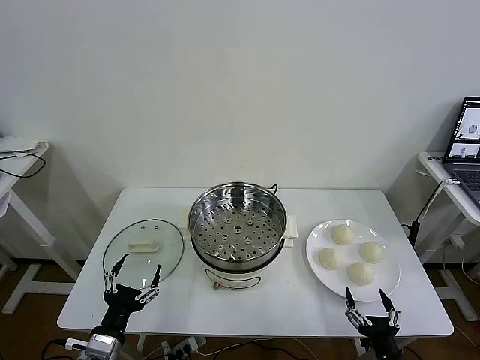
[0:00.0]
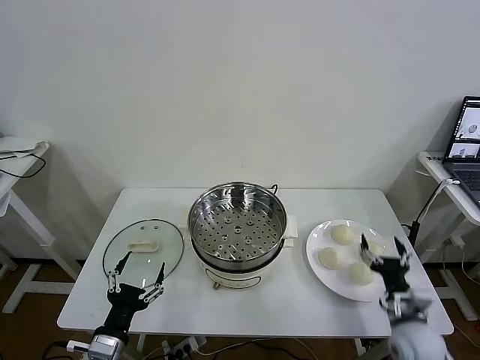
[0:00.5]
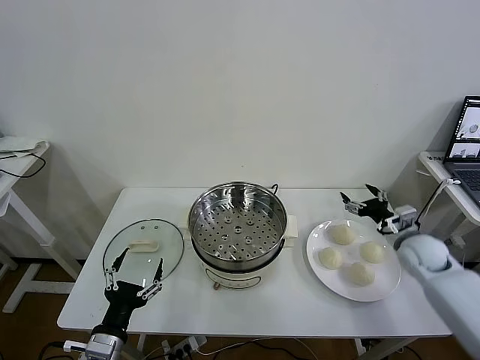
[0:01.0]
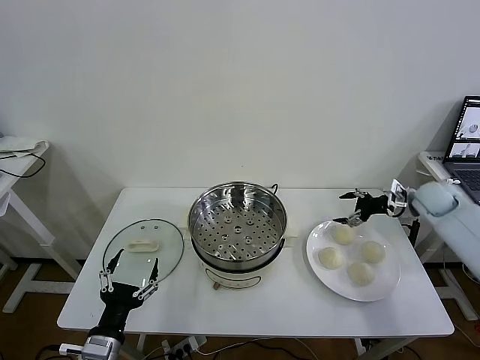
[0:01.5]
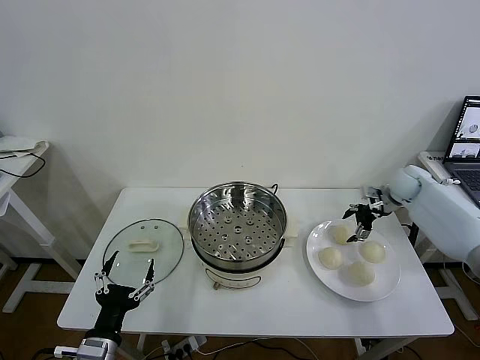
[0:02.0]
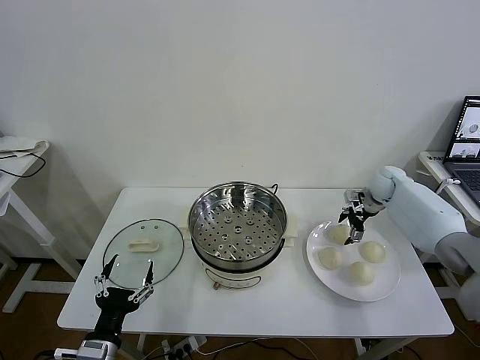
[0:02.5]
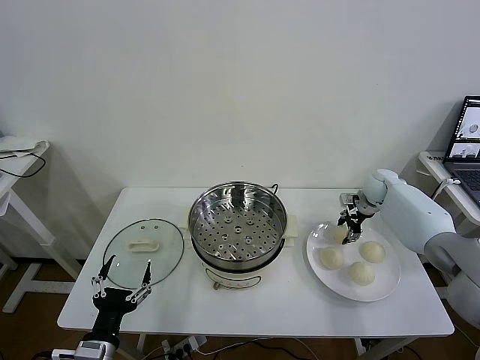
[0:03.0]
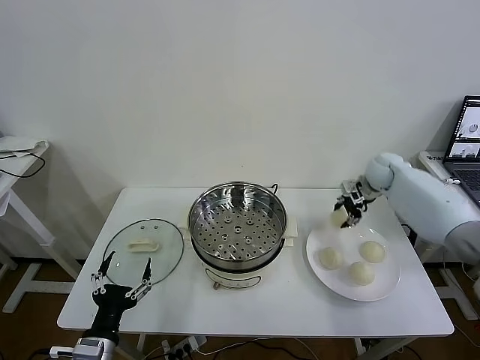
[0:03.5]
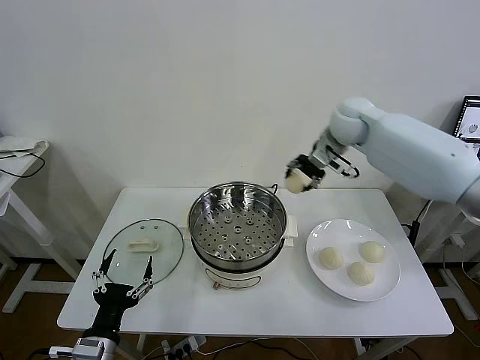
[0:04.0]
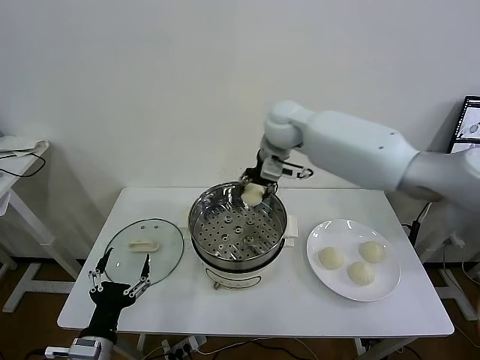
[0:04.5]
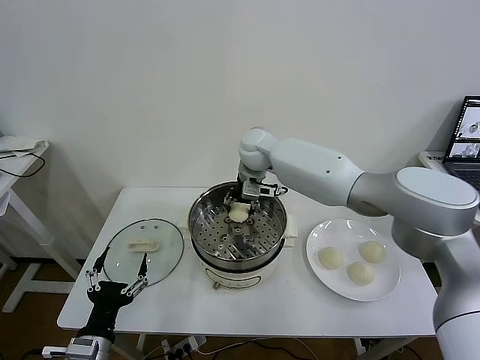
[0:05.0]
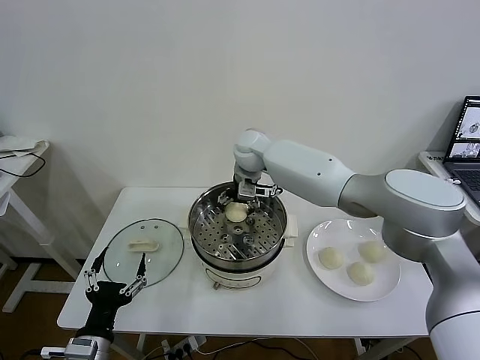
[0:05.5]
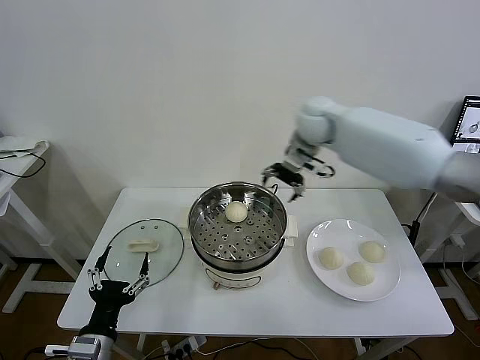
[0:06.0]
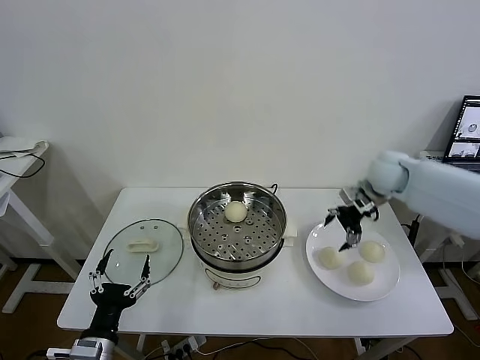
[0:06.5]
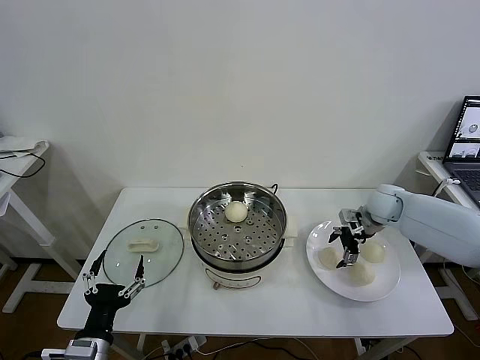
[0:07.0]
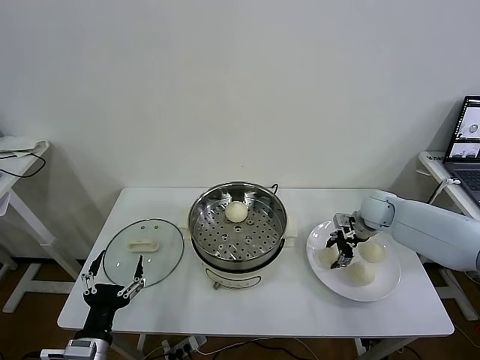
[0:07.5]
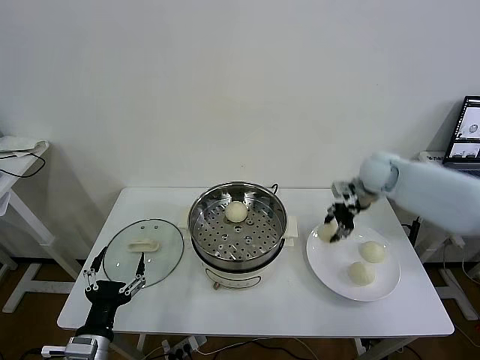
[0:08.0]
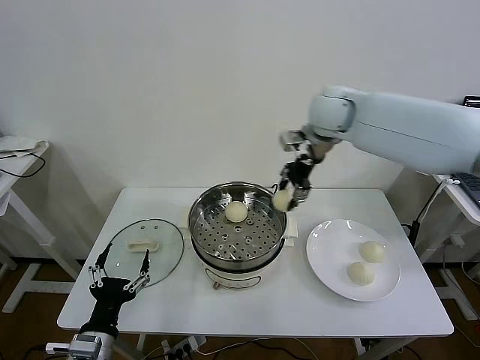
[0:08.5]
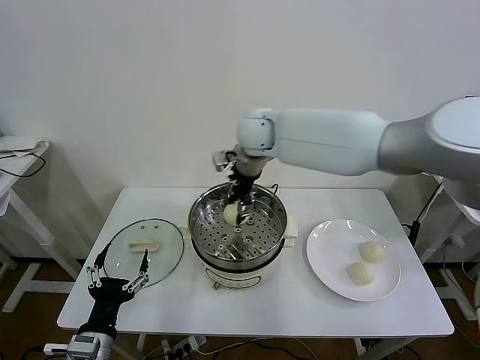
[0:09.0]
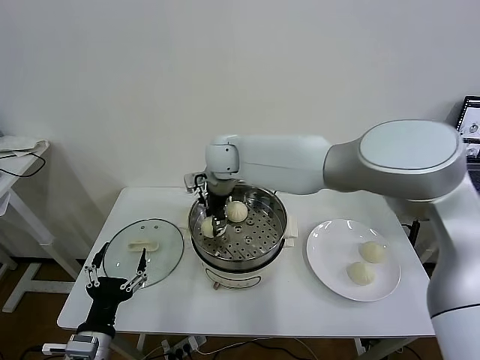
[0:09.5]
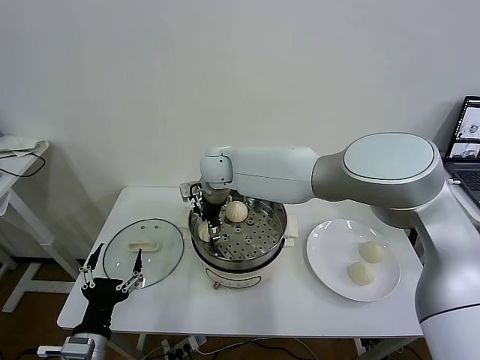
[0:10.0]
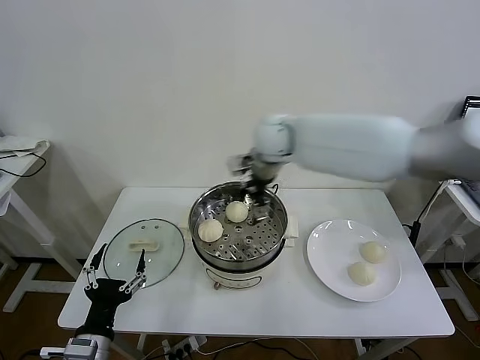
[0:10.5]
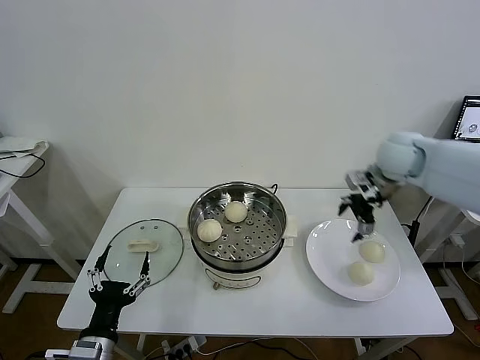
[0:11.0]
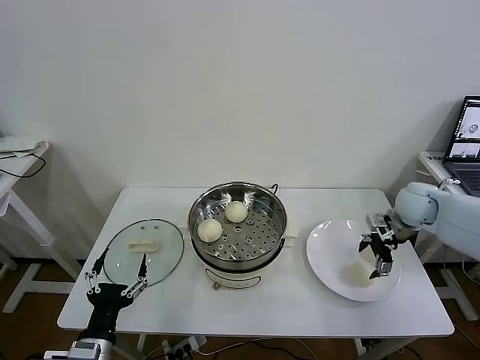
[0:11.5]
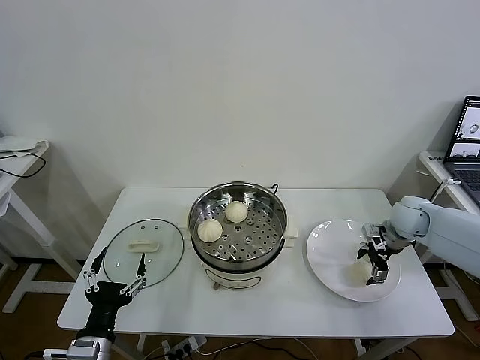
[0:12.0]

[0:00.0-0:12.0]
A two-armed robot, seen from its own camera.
Task of the whole recording: take steamed baozi put them in steamer then cover it.
Step, 0:00.0 to 0:03.0: Grasp the baozi in the plate with right gripper.
Step, 0:03.5 to 0:05.0: Place the baozi on the steamer with right gripper.
Step, 0:05.5 to 0:07.5: Grasp the baozi in the plate with right gripper.
Step, 0:08.0 to 0:10.0: Place the baozi on the steamer with right gripper.
0:02.0 to 0:04.0: The right gripper is displaced to the left and upward by some 30 cm, and closes.
0:04.0 to 0:06.0: The right gripper reaches some 15 cm to the left, then returns, and opens its fingers.
0:06.0 to 0:08.0: The right gripper goes approximately 15 cm to the right and downward, and closes up.
0:08.0 to 0:10.0: The right gripper travels to the left by about 35 cm, and opens its fingers.
0:10.0 to 0:12.0: The right gripper travels to the right by approximately 50 cm.

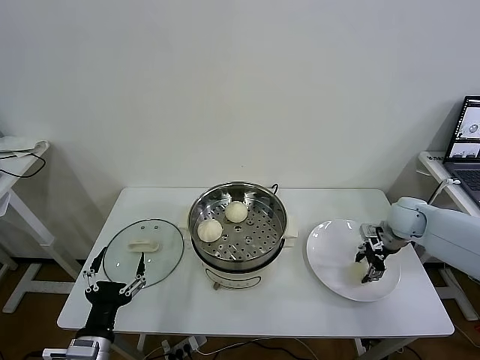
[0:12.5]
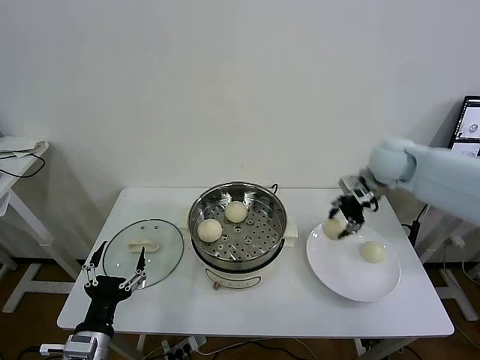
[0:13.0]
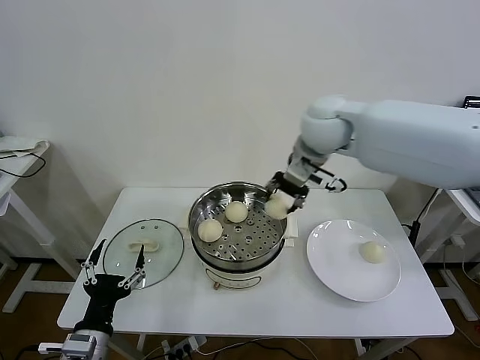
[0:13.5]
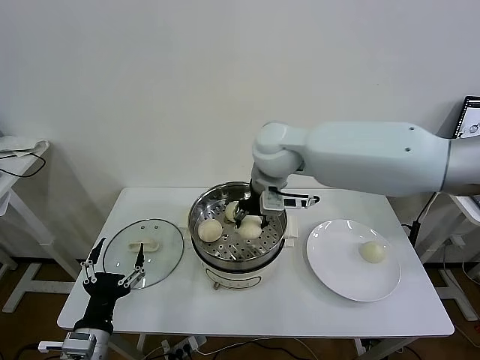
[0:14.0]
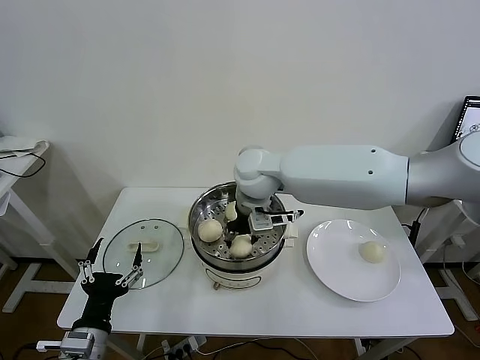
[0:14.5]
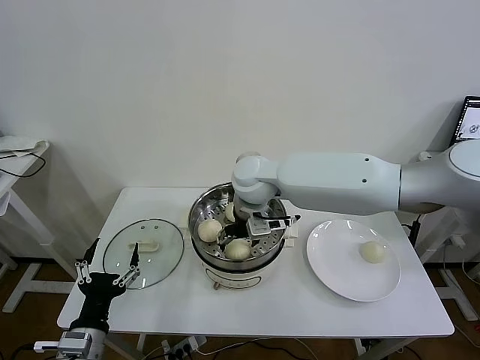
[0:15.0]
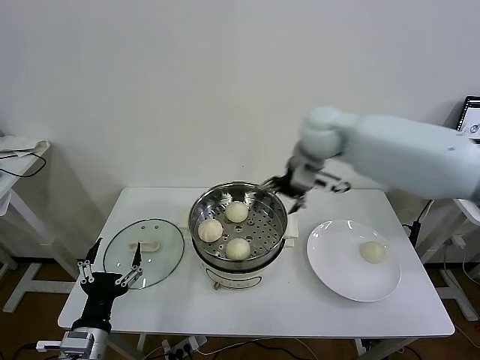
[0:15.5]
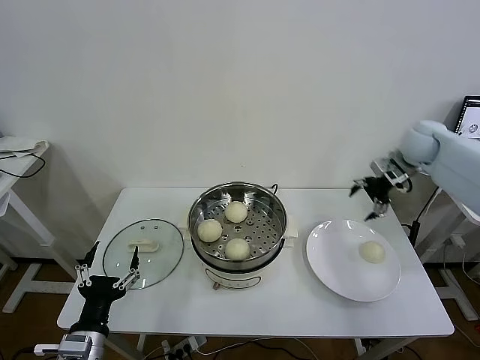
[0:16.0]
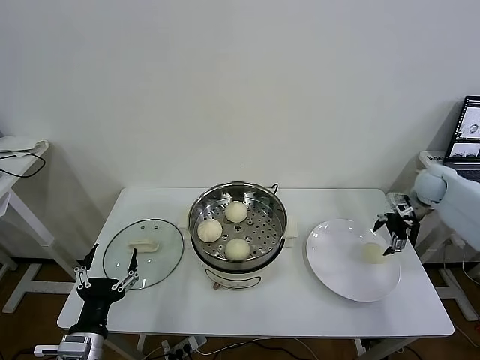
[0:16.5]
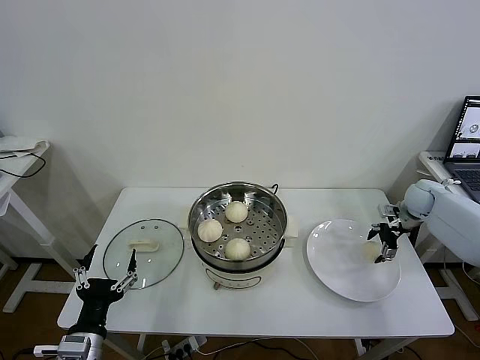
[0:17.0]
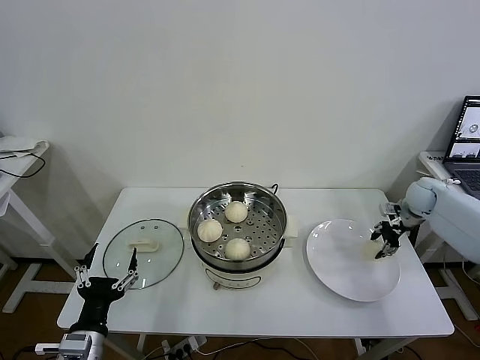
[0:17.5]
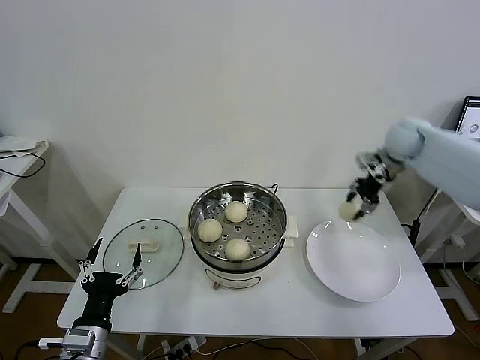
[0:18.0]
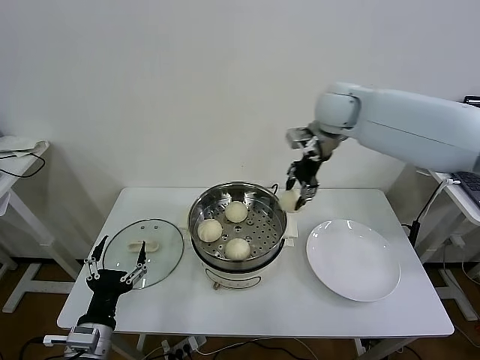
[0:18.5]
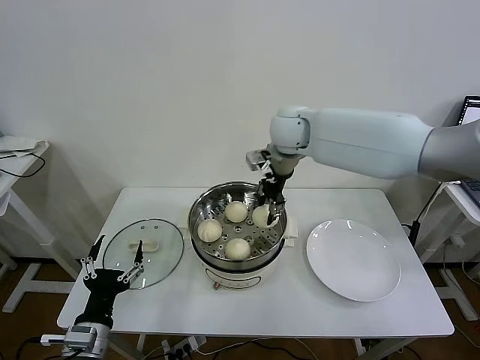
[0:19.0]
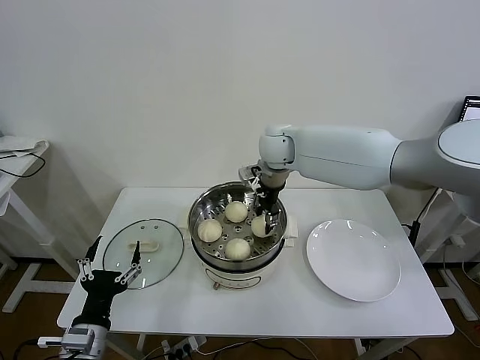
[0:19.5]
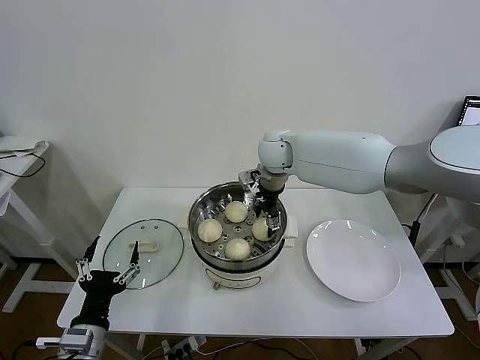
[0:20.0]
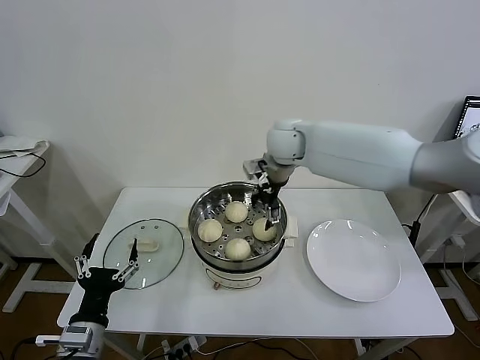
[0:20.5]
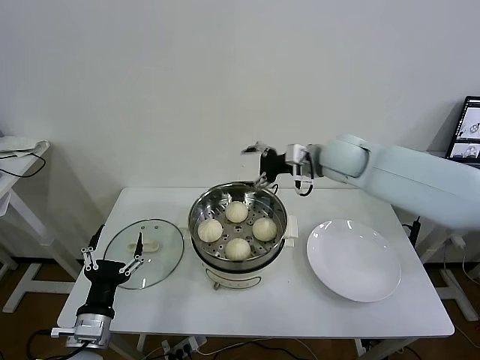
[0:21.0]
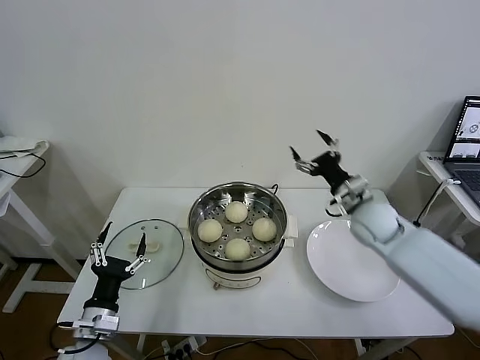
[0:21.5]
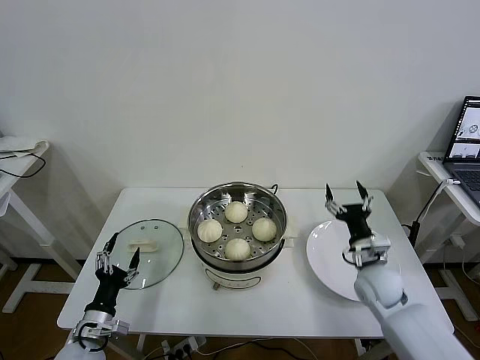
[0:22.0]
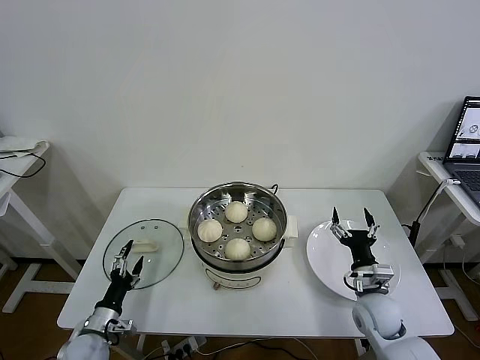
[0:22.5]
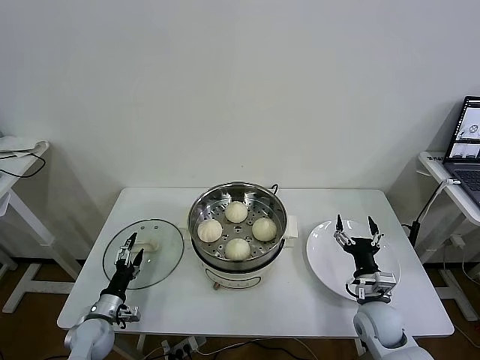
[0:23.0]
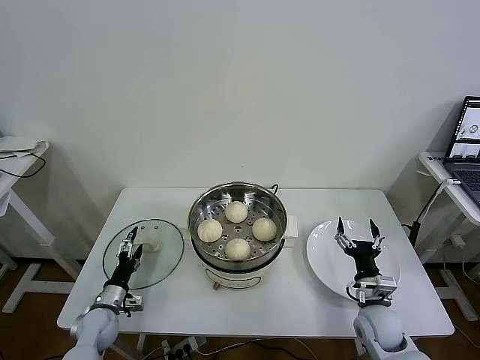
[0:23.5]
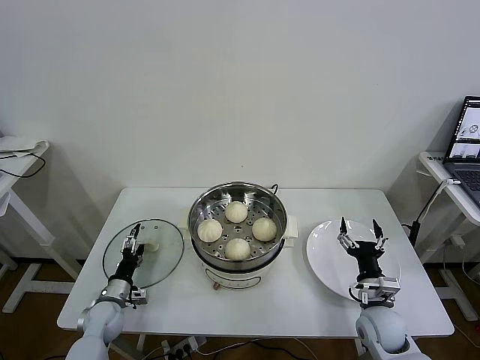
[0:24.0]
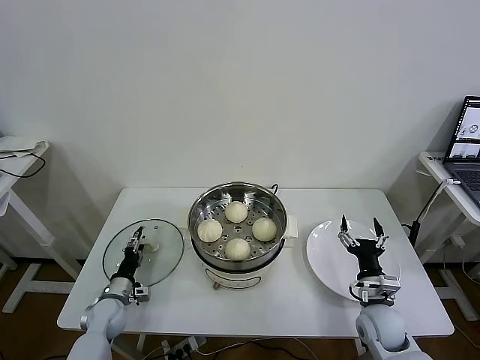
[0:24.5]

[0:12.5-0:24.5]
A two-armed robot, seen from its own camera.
Task of the whole recording: take steamed baozi put them in steamer then cover it.
Step, 0:13.0 to 0:15.0: Place the baozi on the steamer with right gripper.
Step, 0:15.5 to 0:17.0: Grasp the baozi in the plate with right gripper.
Step, 0:18.0 to 0:20.0: Place the baozi on the steamer with right gripper.
0:12.5 to 0:14.5: The right gripper heads to the left, covering about 40 cm.
0:14.5 to 0:16.5: The right gripper shifts about 50 cm to the right, and opens its fingers.
0:16.5 to 0:18.5: The right gripper moves to the left and upward, roughly 35 cm, and closes.
0:18.5 to 0:20.5: The right gripper goes some 10 cm to the left and downward, and opens.
0:20.5 to 0:22.5: The left gripper heads downward, forward and to the left, covering some 20 cm. The right gripper is displaced downward, backward and to the right by roughly 40 cm.
0:22.5 to 0:24.5: The left gripper goes some 10 cm forward, and closes up.

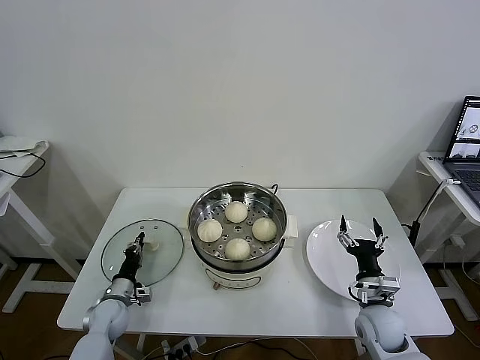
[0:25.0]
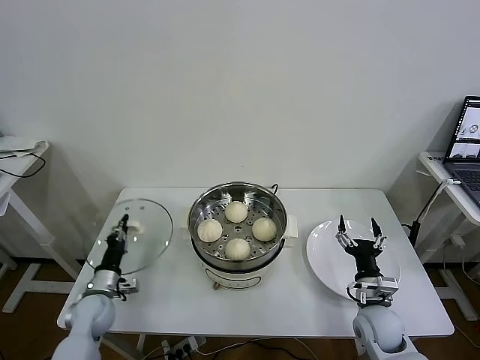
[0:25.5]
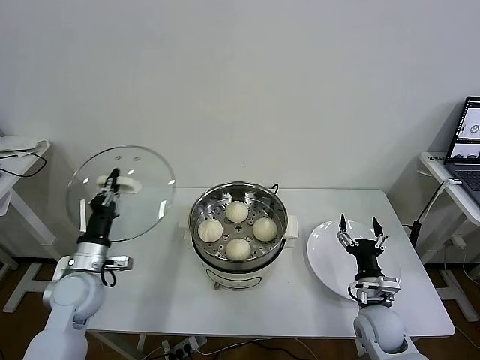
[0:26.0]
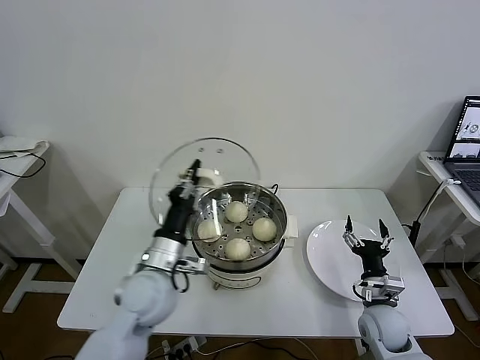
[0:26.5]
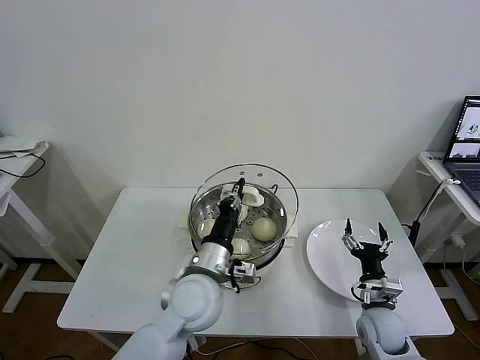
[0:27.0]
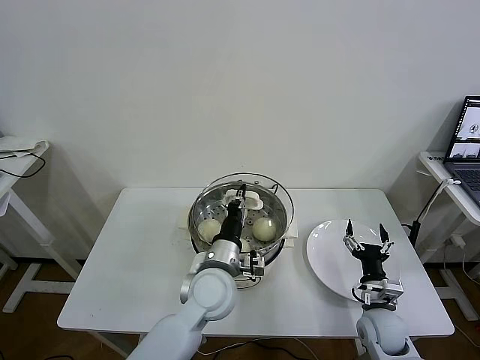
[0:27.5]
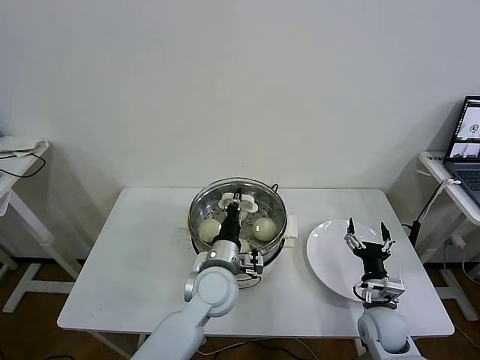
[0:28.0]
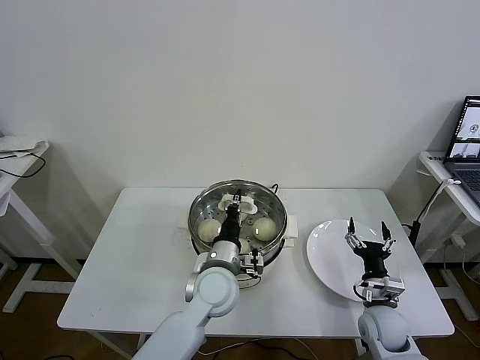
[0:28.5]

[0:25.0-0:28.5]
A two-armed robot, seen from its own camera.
Task of the whole recording: take steamed baozi put them in steamer then cover it.
0:25.0 to 0:27.0: The left gripper heads to the right and upward, covering approximately 35 cm.
0:27.0 to 0:28.5: The left gripper goes roughly 5 cm downward.
